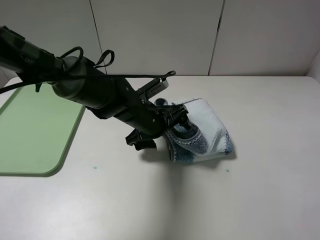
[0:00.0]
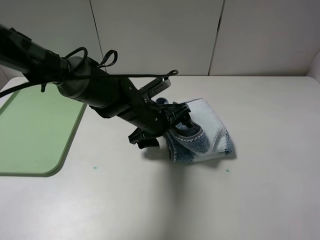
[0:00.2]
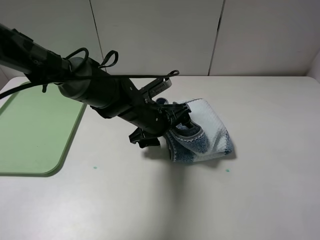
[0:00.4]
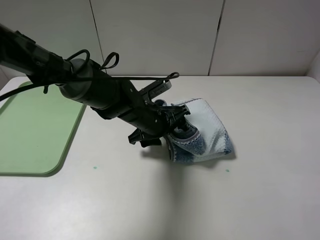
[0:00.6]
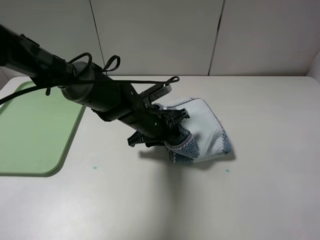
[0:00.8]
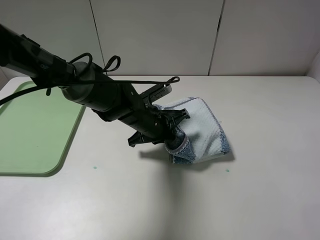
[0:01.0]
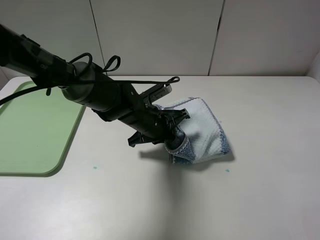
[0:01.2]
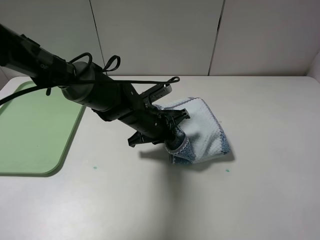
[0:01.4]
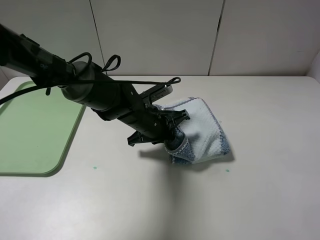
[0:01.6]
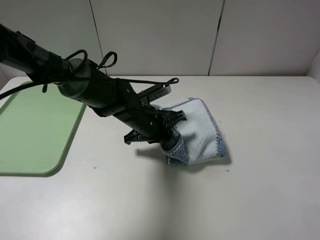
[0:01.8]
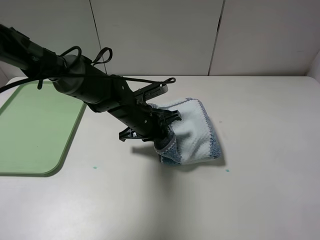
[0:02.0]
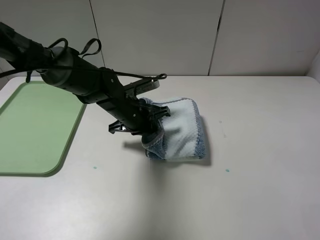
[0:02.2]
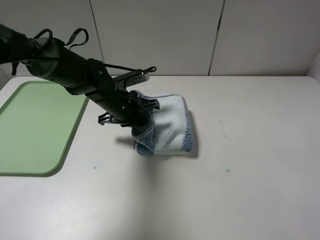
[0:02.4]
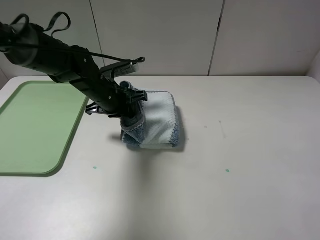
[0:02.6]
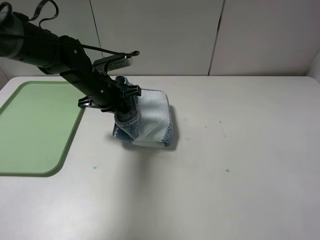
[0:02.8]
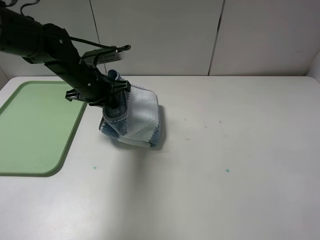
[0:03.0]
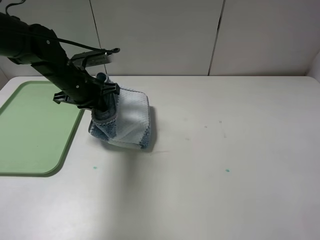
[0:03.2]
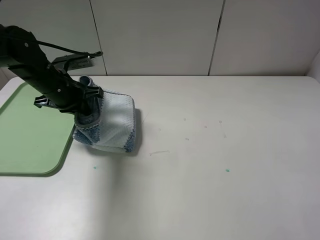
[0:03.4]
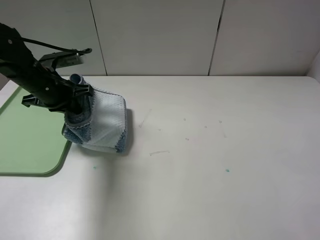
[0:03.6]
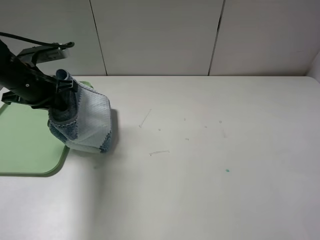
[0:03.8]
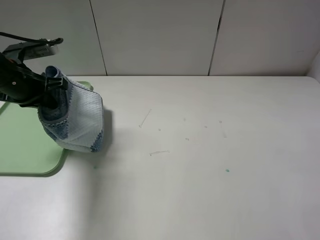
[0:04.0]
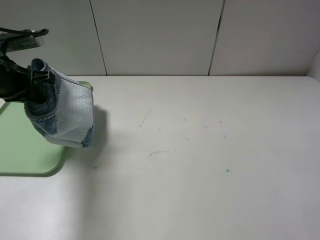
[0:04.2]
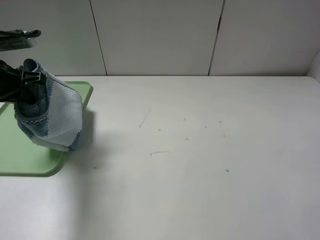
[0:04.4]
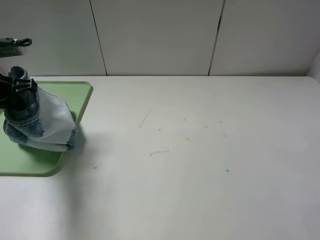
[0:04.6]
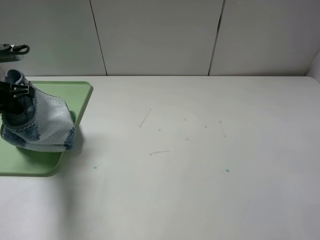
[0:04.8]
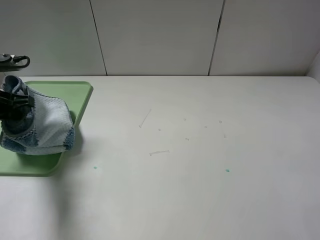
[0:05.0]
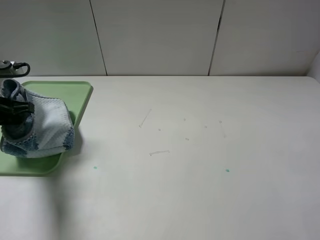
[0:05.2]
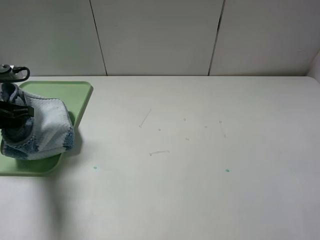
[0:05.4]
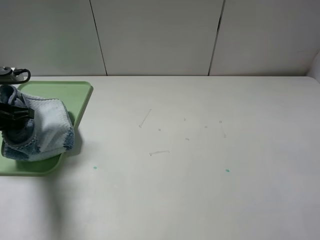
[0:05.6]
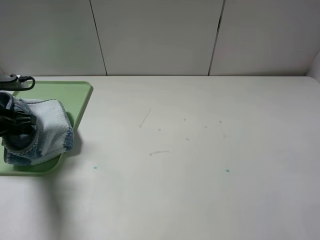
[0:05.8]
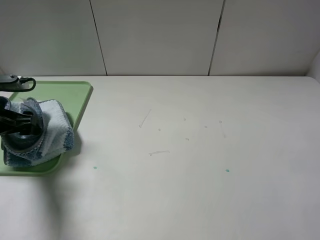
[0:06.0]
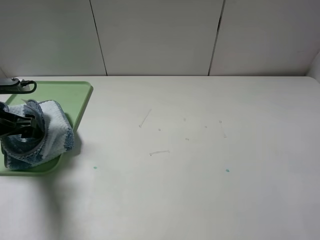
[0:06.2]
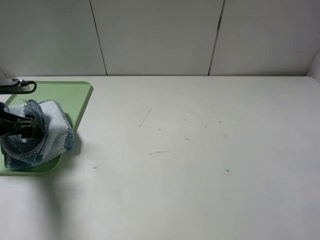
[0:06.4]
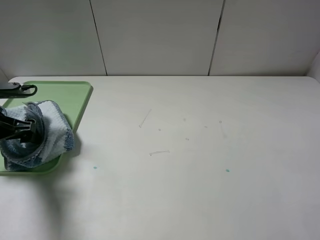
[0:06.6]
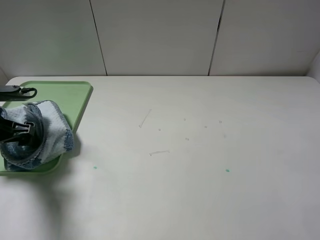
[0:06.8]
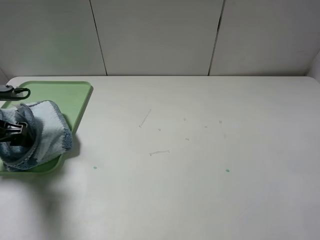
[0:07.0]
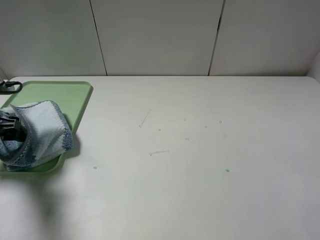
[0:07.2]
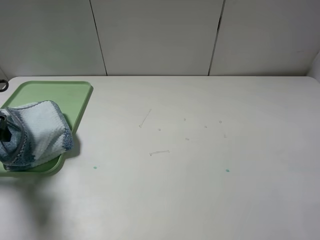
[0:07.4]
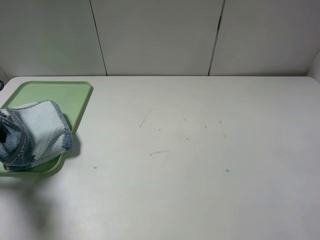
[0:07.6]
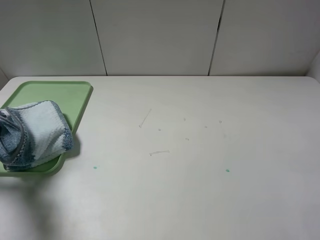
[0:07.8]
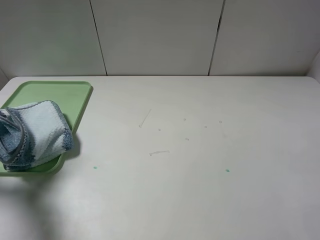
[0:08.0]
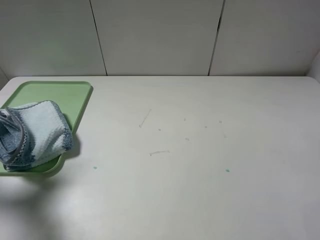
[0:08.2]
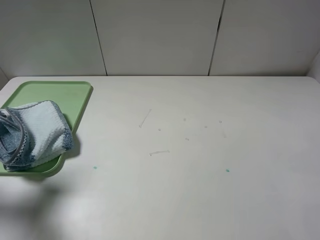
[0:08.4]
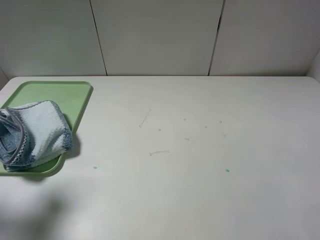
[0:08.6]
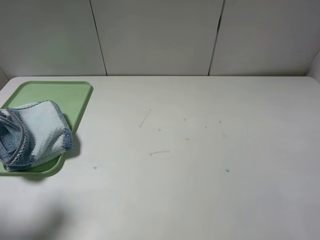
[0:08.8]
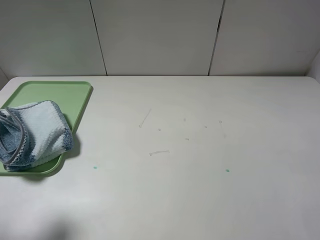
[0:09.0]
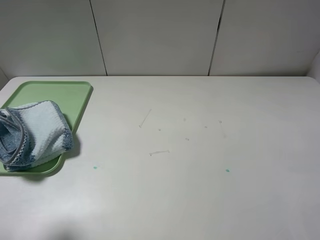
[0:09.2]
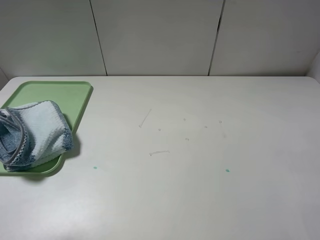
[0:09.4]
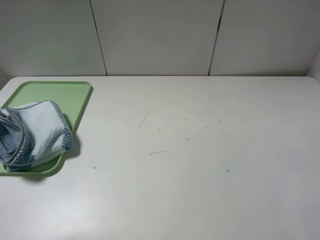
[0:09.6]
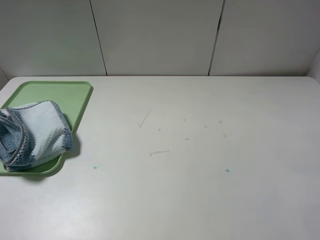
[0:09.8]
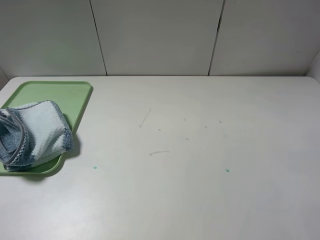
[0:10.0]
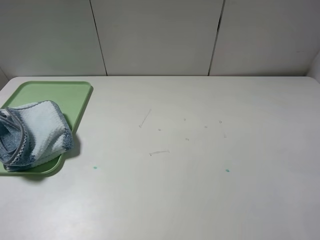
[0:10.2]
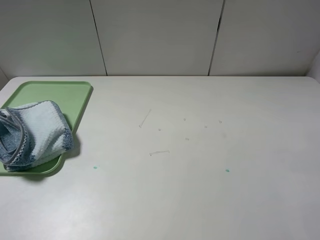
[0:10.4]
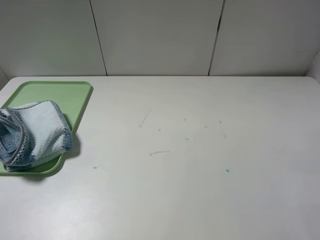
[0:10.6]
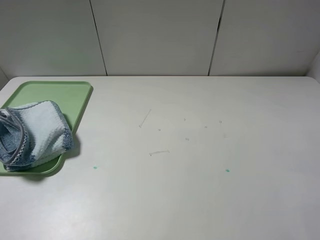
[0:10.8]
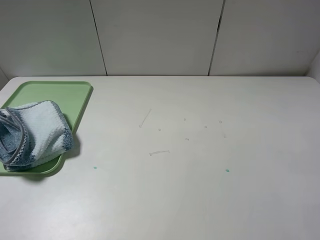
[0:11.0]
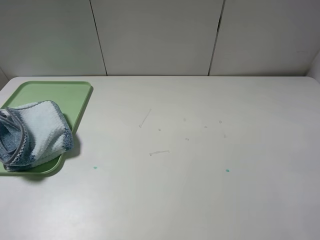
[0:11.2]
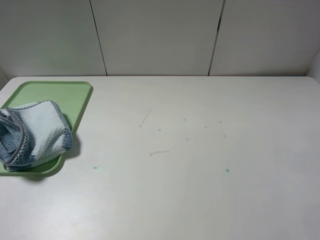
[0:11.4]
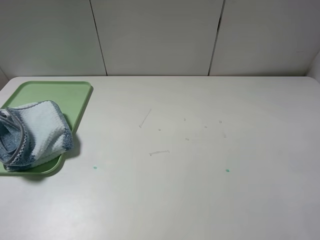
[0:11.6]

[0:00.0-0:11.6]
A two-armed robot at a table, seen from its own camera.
0:00.0 to 0:01.4: The left gripper closes.
0:01.4 to 0:02.8: The left gripper shifts approximately 15 cm to the left, upward and forward.
0:02.8 to 0:04.4: The left gripper goes approximately 20 cm to the left and upward.
0:04.4 to 0:05.8: The left gripper is displaced downward by some 5 cm, and opens up.
0:05.8 to 0:07.2: There are only small adjustments of the grippers.
0:07.2 to 0:08.8: The left gripper shifts approximately 15 cm upward and backward.
0:08.8 to 0:10.2: The left gripper goes some 15 cm backward.
